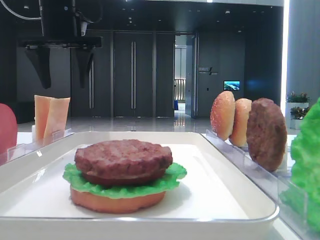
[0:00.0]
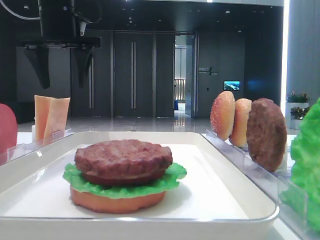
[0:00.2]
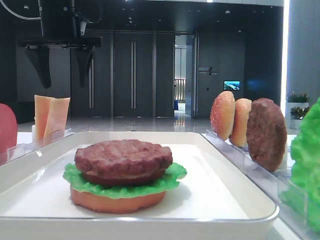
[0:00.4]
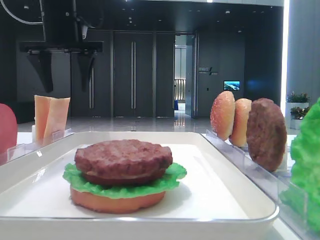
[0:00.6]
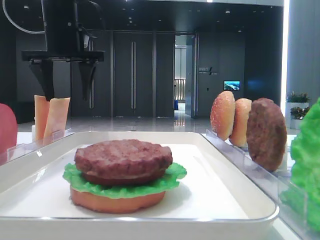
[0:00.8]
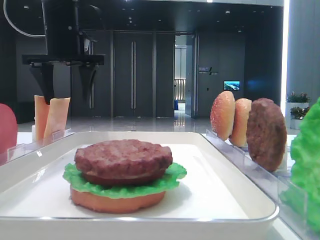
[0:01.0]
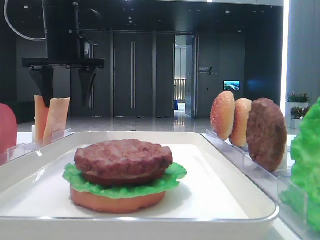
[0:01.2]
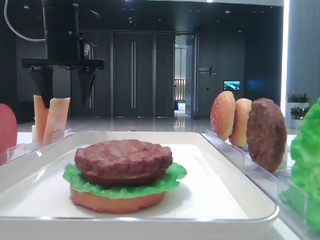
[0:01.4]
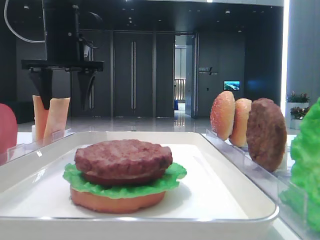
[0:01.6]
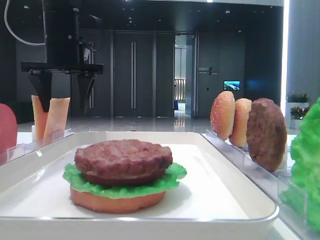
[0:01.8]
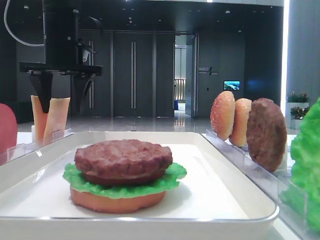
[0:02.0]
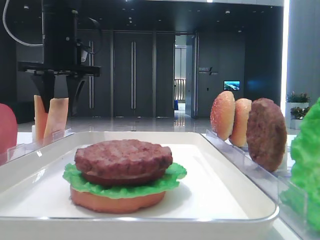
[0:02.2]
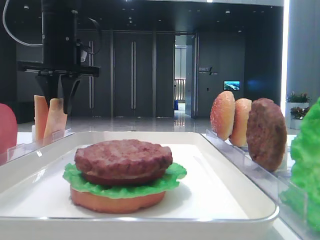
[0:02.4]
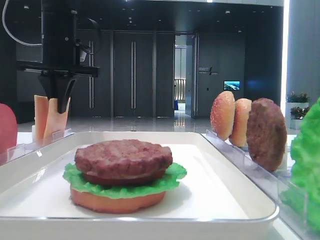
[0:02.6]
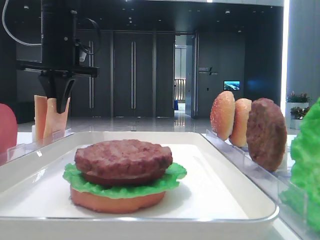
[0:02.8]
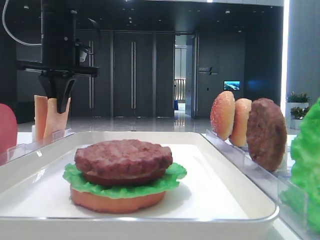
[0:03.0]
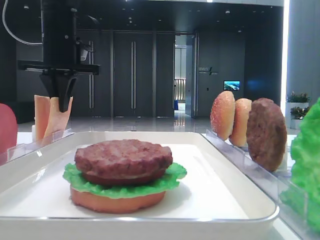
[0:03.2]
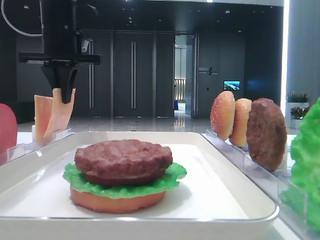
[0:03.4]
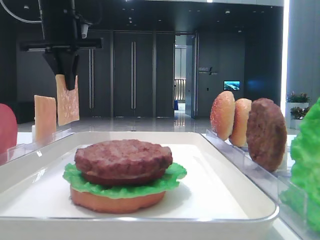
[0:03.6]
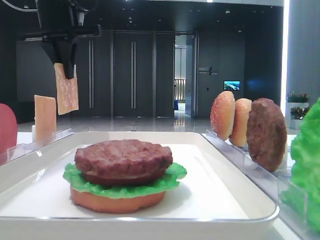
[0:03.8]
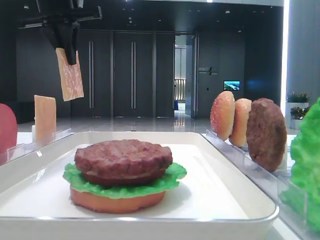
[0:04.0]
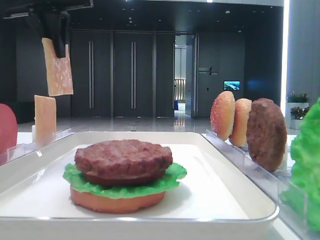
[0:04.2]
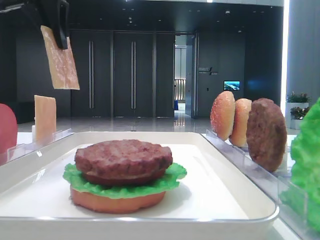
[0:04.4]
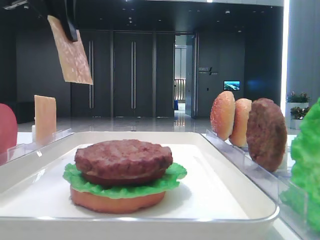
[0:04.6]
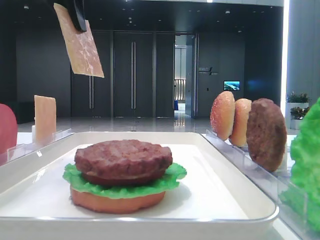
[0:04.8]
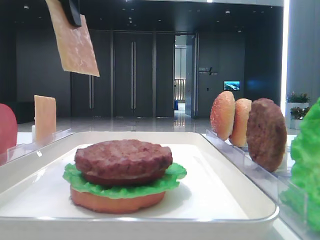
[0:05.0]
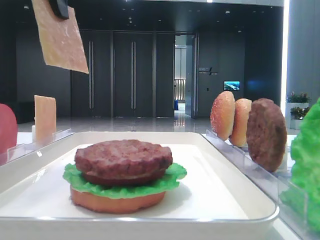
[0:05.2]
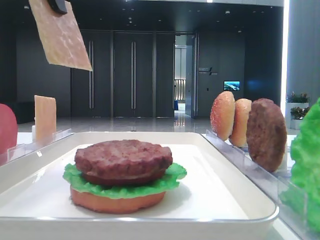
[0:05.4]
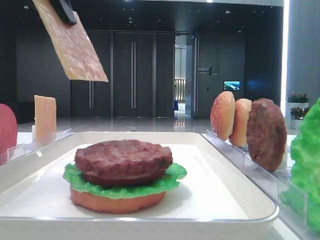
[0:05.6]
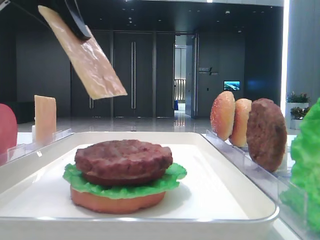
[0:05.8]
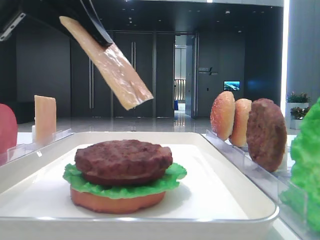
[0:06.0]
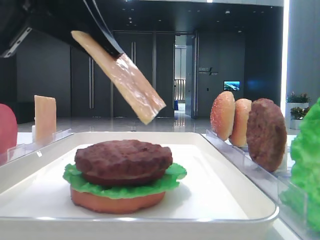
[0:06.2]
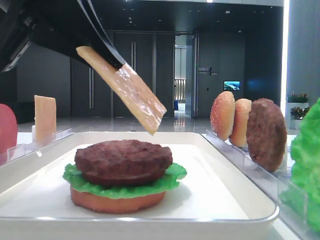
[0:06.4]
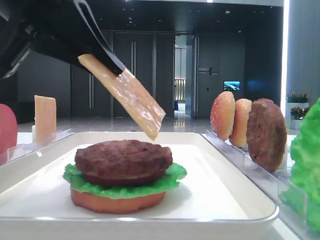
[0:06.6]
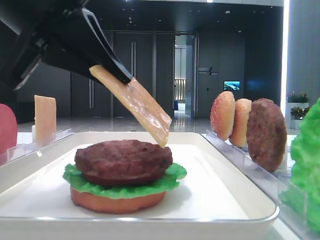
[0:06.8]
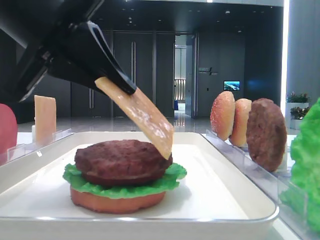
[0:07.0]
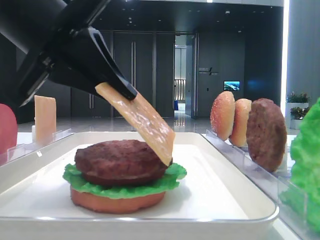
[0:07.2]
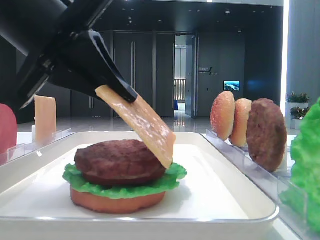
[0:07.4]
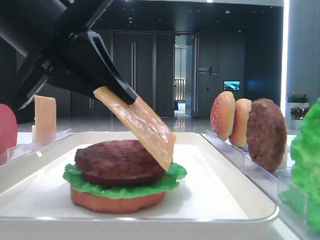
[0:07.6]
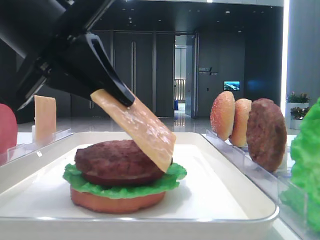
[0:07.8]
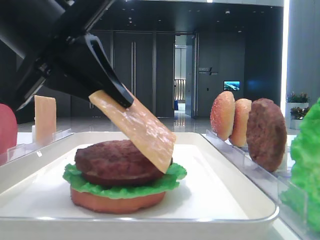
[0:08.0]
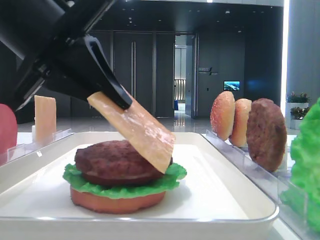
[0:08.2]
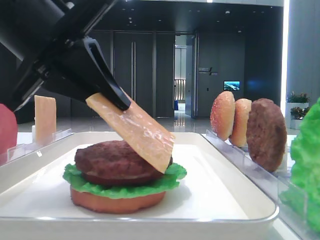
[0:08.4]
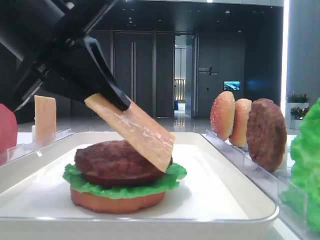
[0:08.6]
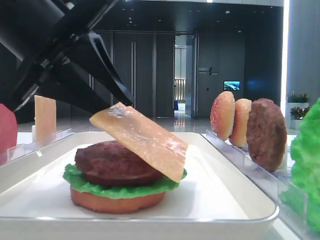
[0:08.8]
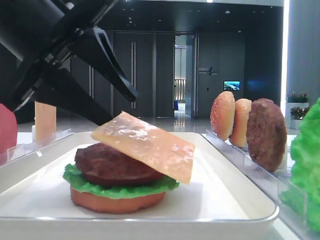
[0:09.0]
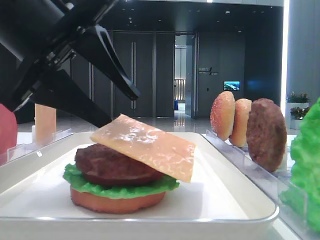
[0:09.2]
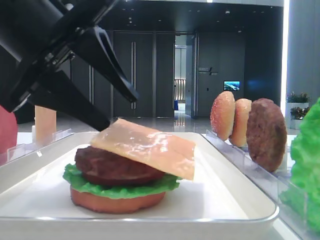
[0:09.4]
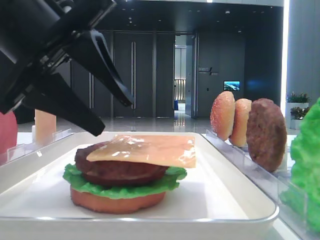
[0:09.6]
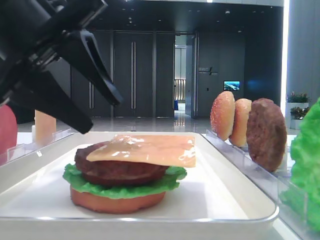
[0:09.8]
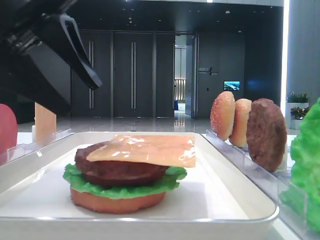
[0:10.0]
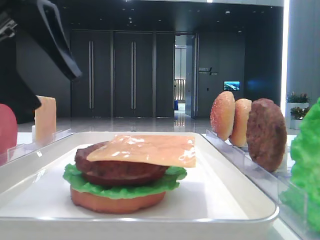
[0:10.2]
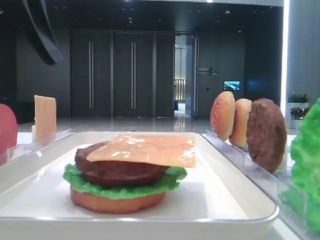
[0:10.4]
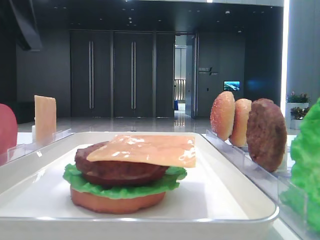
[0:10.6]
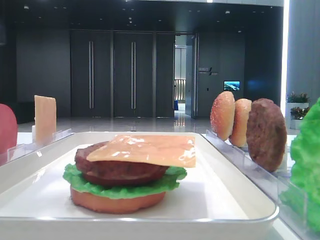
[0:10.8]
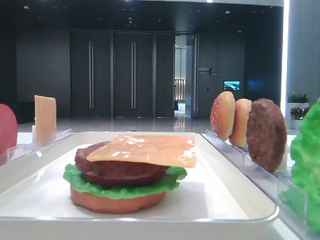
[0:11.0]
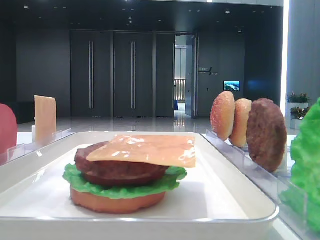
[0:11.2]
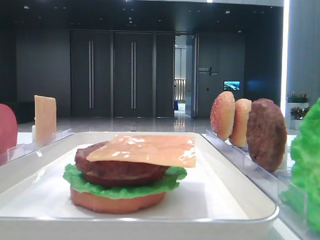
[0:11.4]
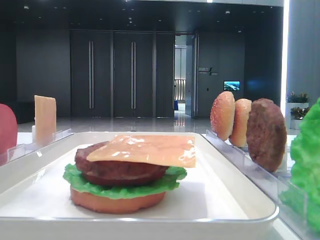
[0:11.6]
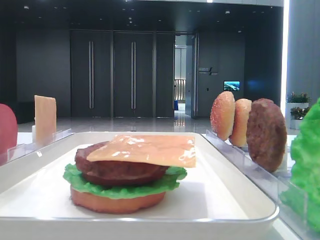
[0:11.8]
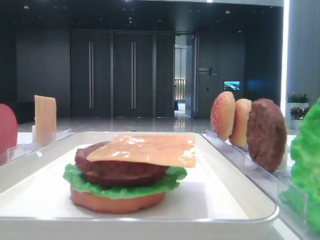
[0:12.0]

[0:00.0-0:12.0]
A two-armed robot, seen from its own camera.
Step, 0:00.0 to 0:02.6: Pick up the cheese slice with the left hand.
Step, 0:02.8 to 0:09.8: Place the cheese slice on the patty with the left hand.
0:00.0 to 0:01.6: There are only small adjustments of the grippers.
0:01.6 to 0:03.0: The left gripper closes.
0:03.0 to 0:04.4: The left gripper travels upward and backward by about 10 cm.
0:04.4 to 0:06.0: The left gripper moves backward and downward, approximately 15 cm.
0:06.0 to 0:07.6: The left gripper moves downward, about 5 cm.
0:07.6 to 0:09.0: The left gripper opens.
0:09.0 to 0:10.4: The left gripper shifts approximately 5 cm to the left.
0:10.4 to 0:12.0: The left gripper travels to the left and upward by approximately 10 cm.

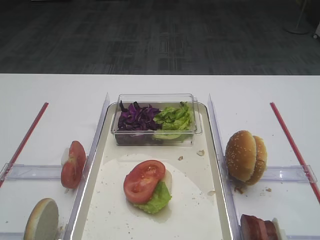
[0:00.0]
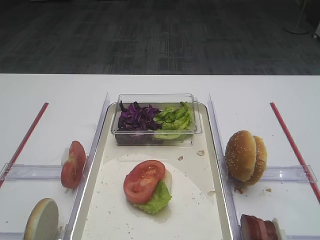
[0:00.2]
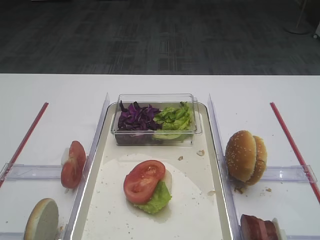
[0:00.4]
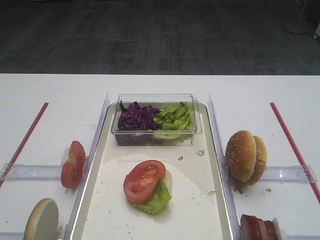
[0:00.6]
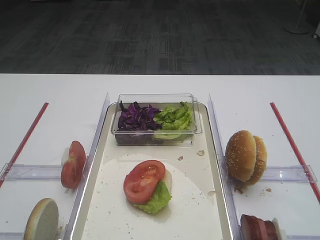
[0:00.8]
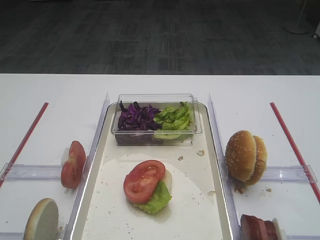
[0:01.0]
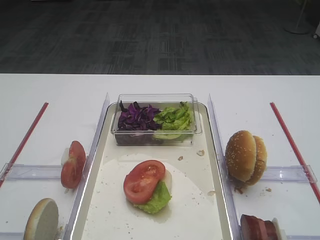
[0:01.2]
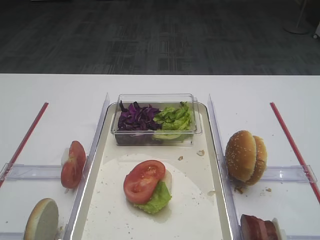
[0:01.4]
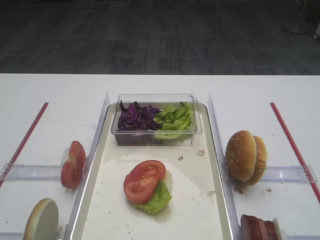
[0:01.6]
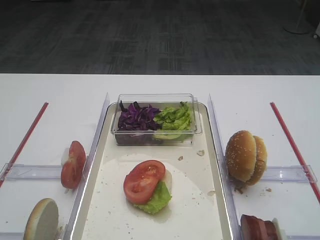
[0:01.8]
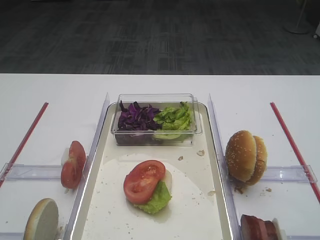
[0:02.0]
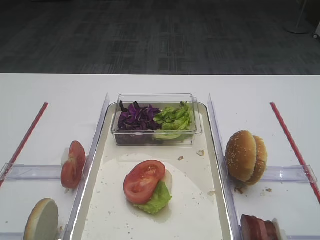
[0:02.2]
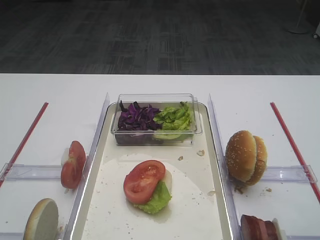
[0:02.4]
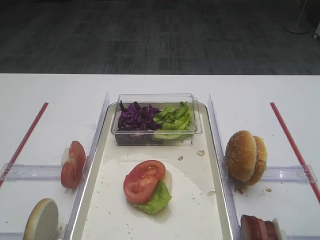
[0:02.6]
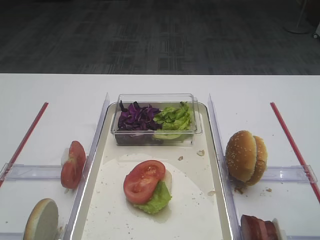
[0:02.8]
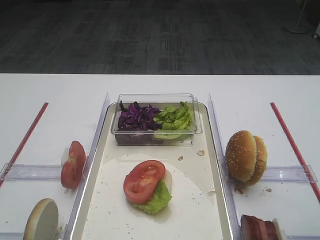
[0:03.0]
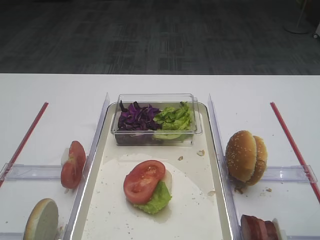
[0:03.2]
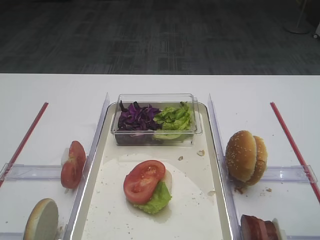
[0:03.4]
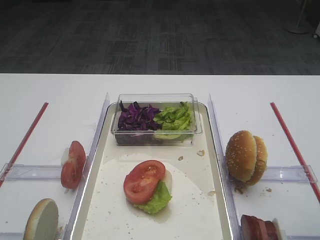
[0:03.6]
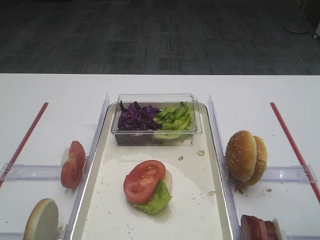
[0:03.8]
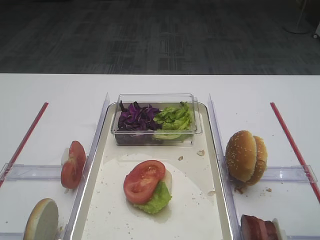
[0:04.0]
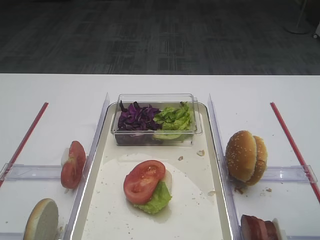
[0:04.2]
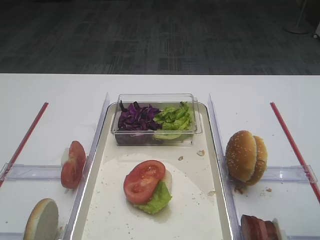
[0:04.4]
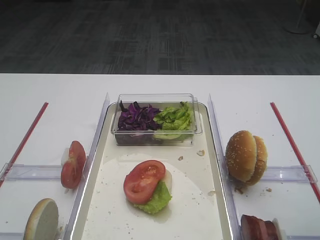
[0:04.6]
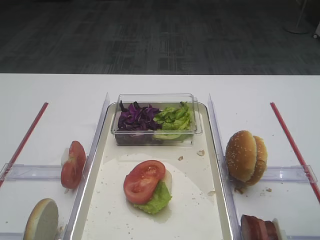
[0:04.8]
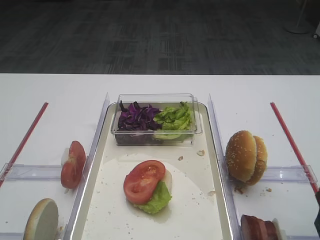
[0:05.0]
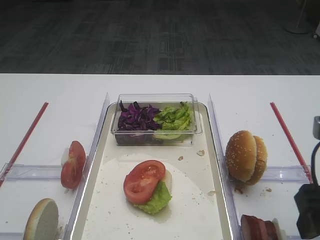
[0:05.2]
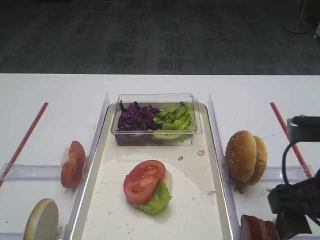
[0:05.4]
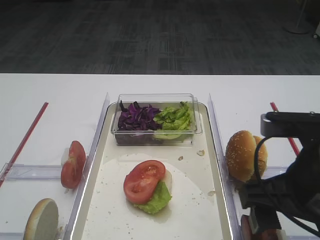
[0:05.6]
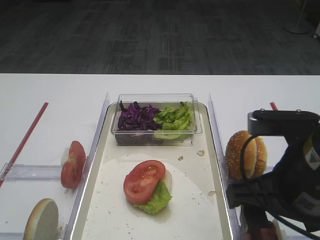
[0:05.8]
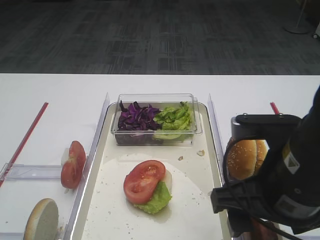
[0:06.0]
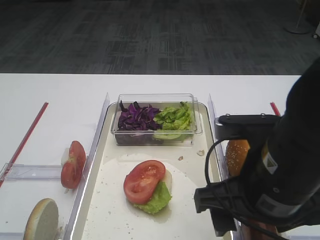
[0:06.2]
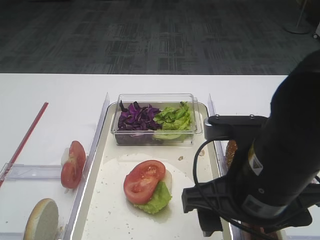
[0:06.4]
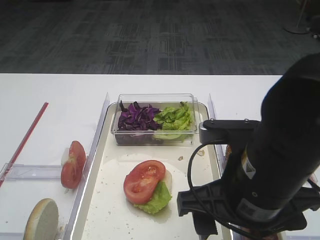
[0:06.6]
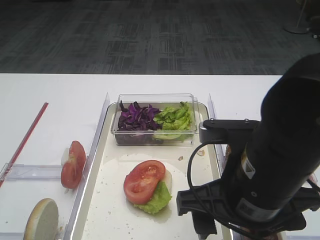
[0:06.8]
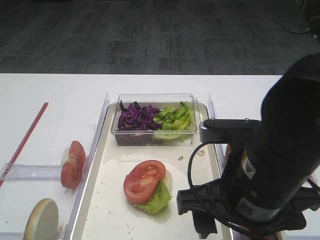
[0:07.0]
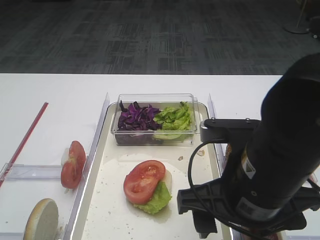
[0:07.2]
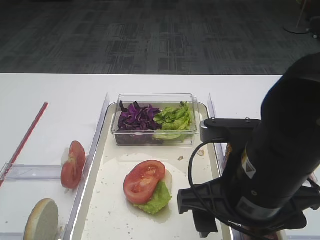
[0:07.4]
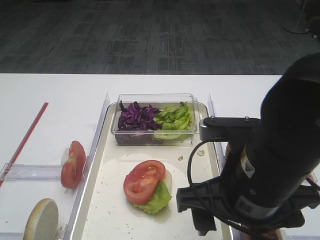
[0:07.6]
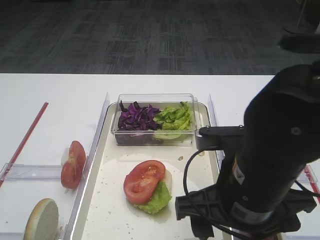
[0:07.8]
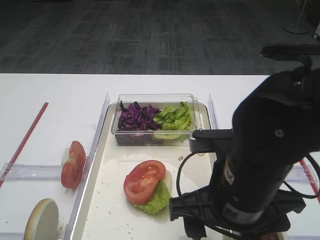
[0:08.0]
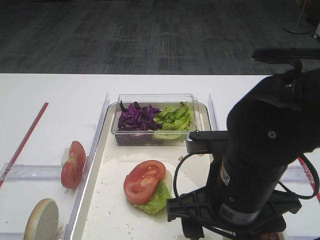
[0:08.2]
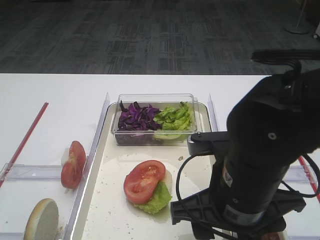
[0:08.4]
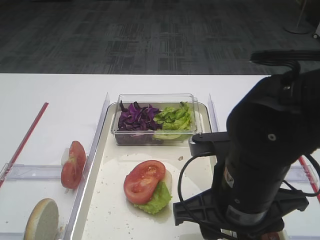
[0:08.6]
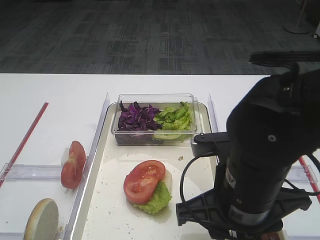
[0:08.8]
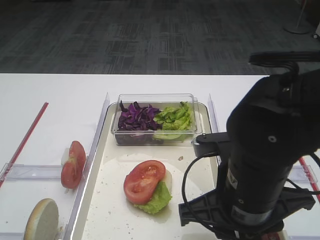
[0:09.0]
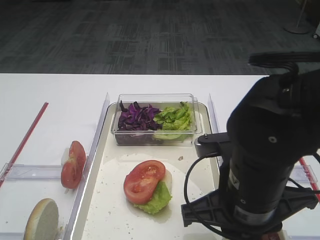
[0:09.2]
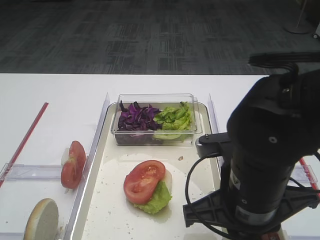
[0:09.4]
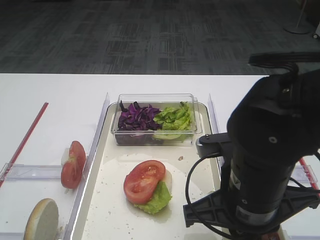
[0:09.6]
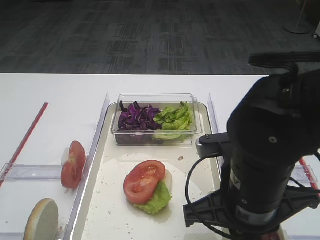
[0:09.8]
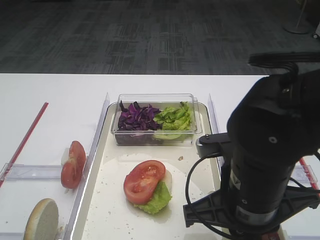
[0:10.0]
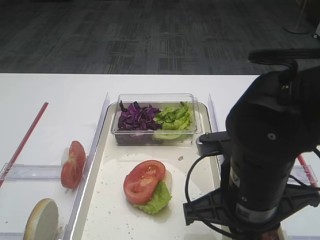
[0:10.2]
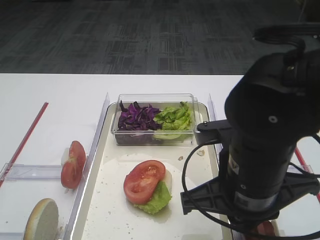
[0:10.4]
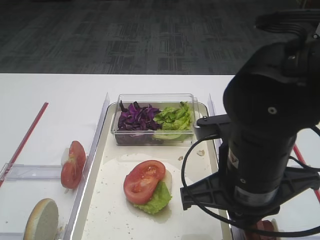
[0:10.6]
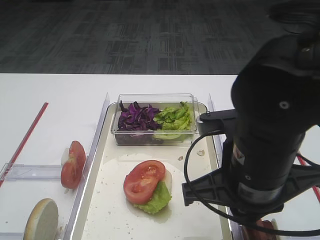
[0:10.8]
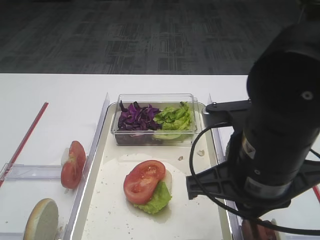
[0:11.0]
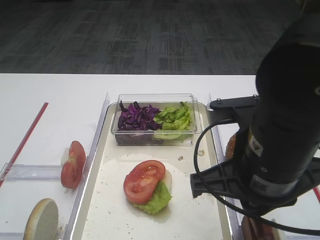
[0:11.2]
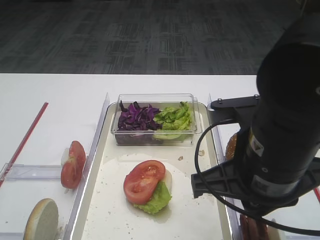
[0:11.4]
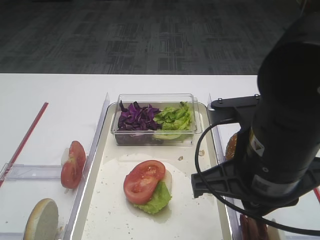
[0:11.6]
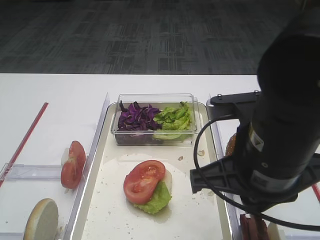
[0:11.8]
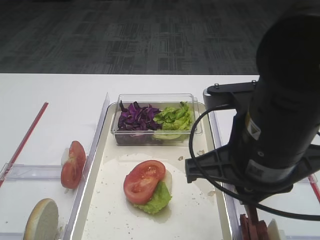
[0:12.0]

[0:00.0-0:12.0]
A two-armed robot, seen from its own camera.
0:04.4 to 0:06.0: The right gripper heads to the left, covering approximately 10 cm.
0:06.0 to 0:07.6: The grippers move only a little.
0:07.6 to 0:09.0: The right gripper closes up.
0:09.0 to 0:10.4: The right gripper closes up.
0:10.4 to 0:12.0: The right gripper is displaced upward by roughly 5 cm.
